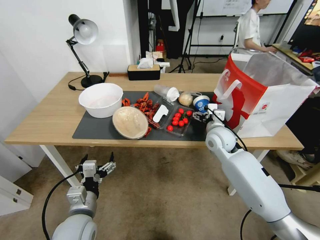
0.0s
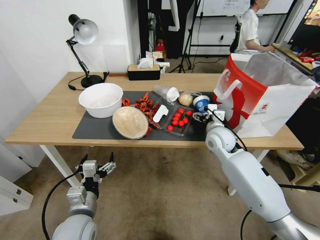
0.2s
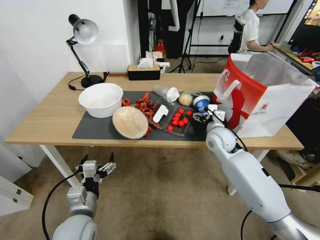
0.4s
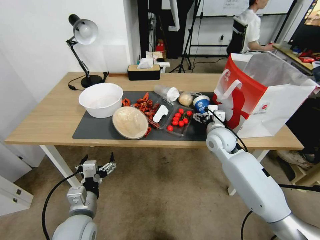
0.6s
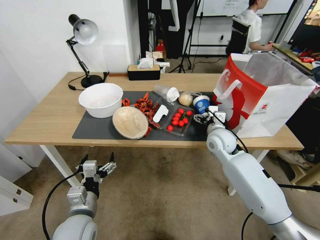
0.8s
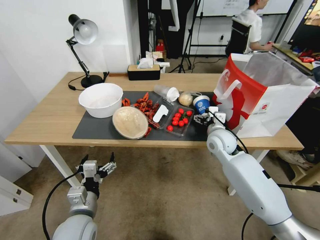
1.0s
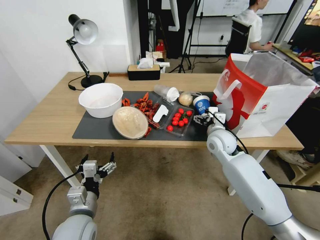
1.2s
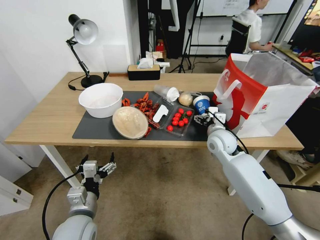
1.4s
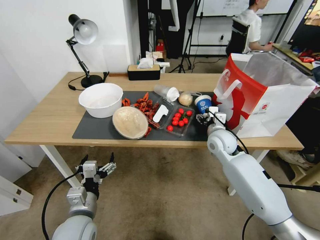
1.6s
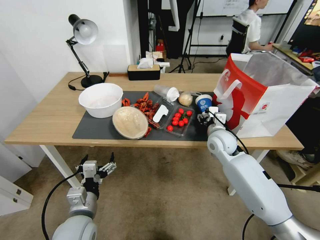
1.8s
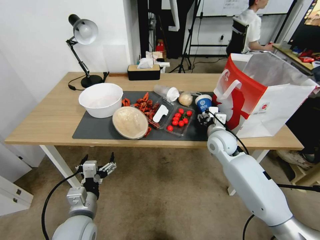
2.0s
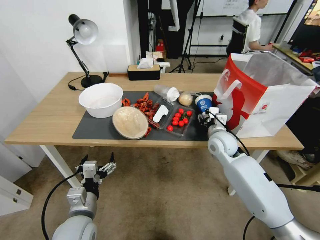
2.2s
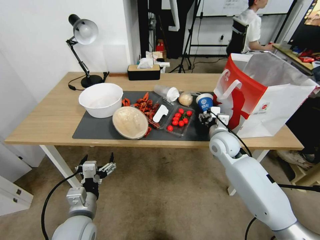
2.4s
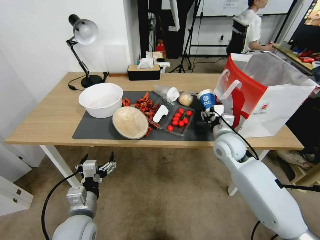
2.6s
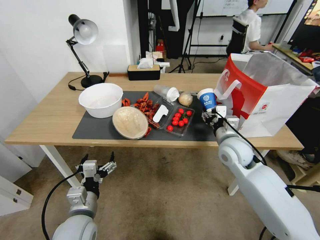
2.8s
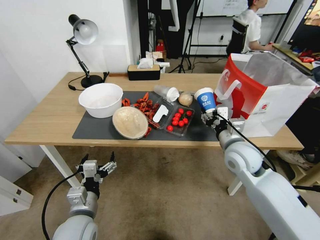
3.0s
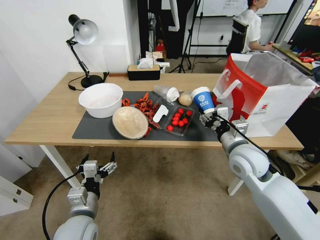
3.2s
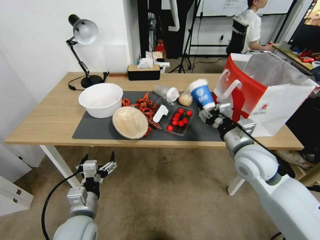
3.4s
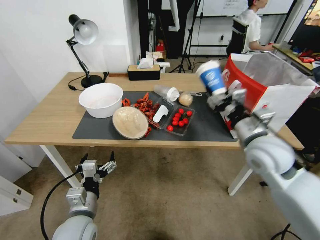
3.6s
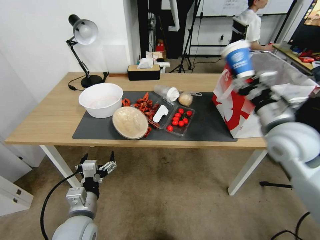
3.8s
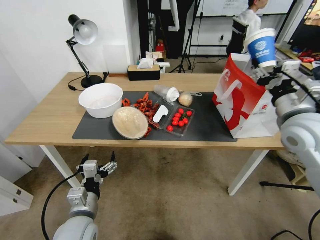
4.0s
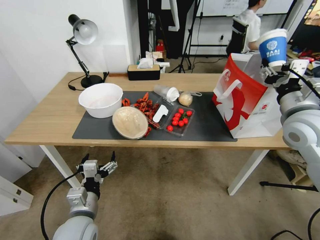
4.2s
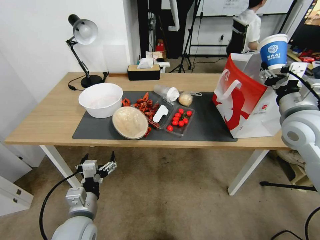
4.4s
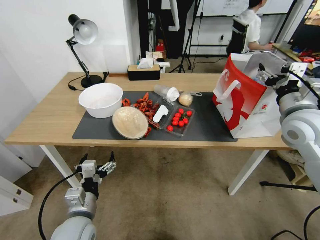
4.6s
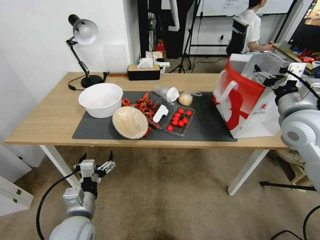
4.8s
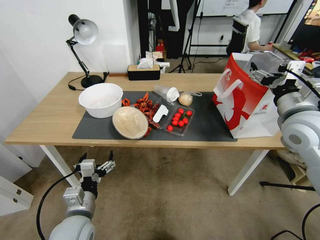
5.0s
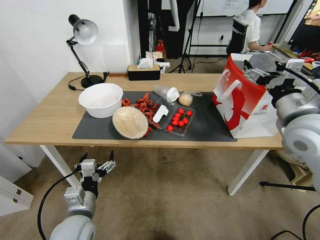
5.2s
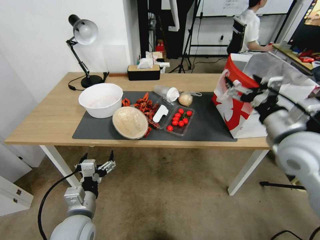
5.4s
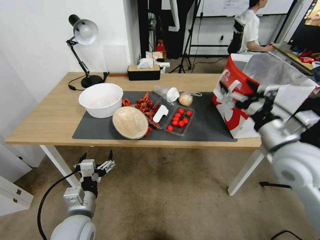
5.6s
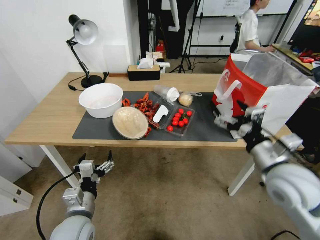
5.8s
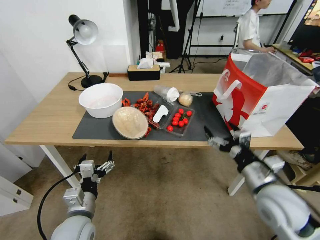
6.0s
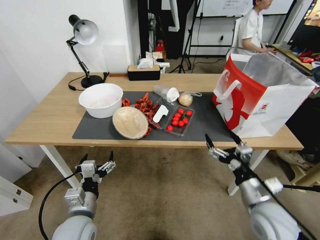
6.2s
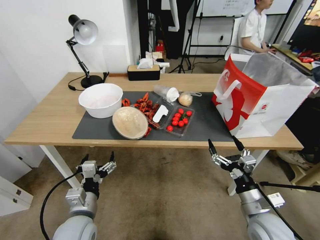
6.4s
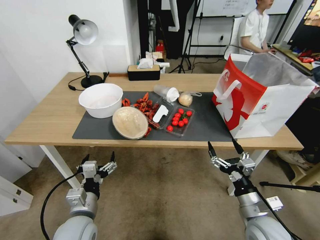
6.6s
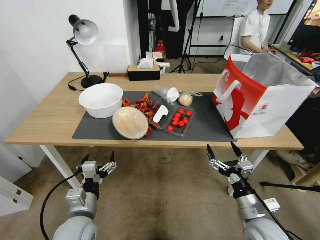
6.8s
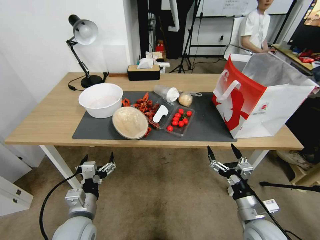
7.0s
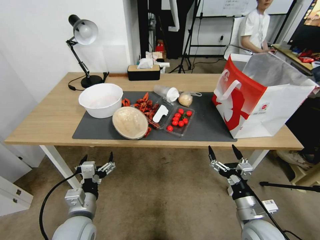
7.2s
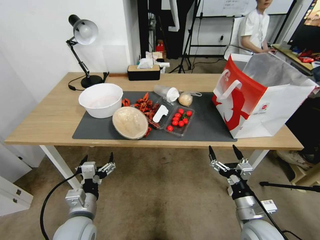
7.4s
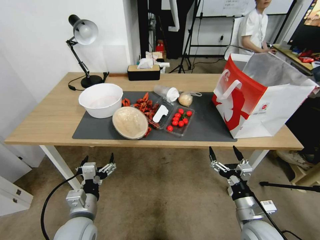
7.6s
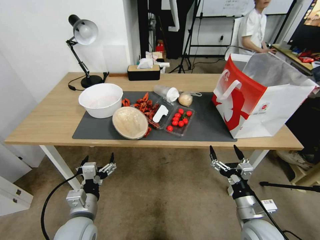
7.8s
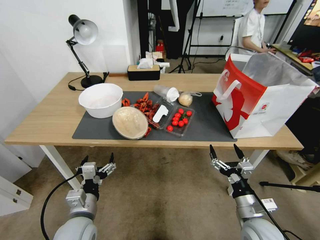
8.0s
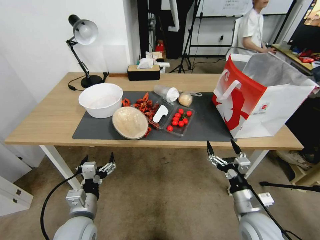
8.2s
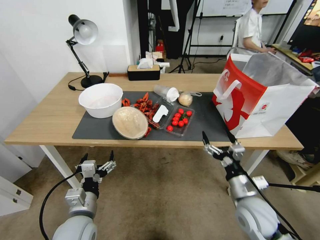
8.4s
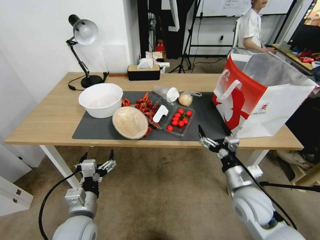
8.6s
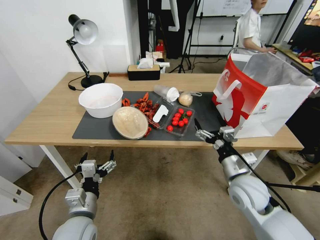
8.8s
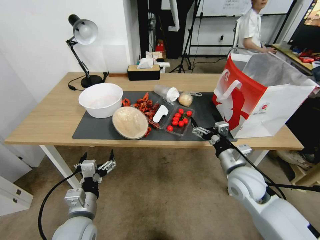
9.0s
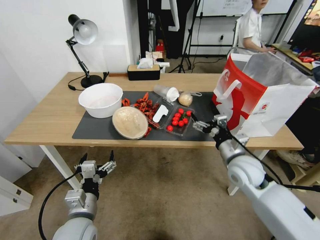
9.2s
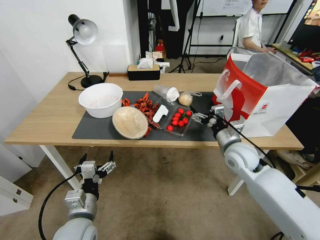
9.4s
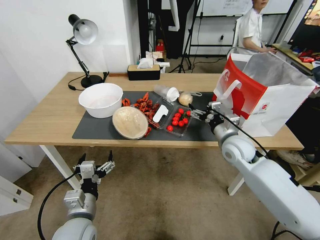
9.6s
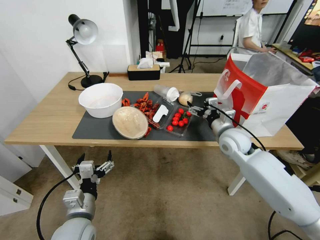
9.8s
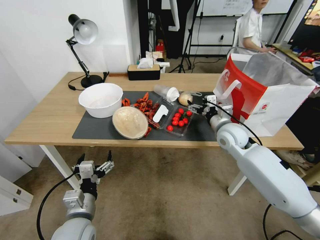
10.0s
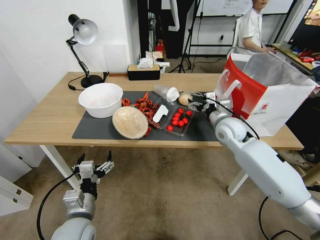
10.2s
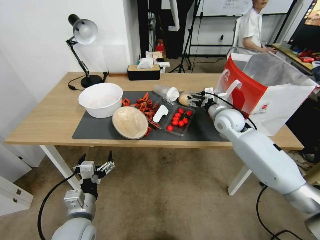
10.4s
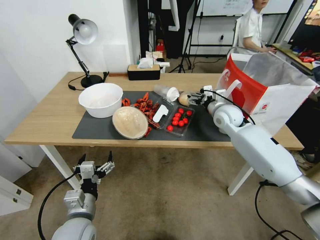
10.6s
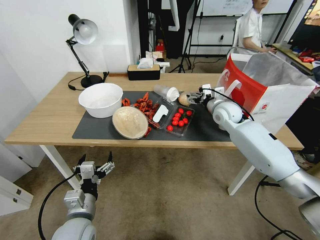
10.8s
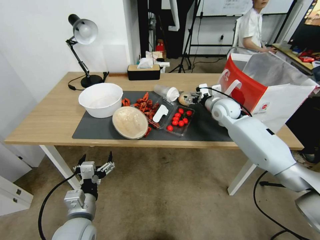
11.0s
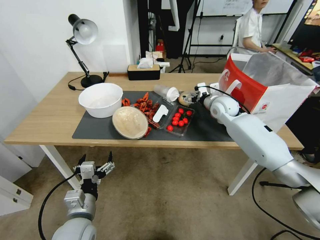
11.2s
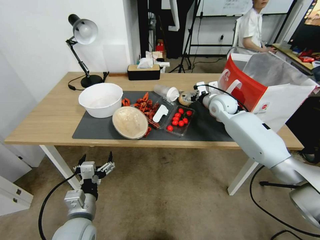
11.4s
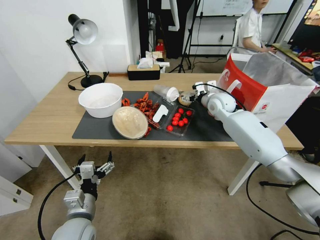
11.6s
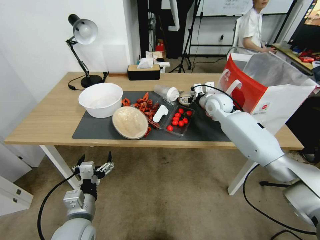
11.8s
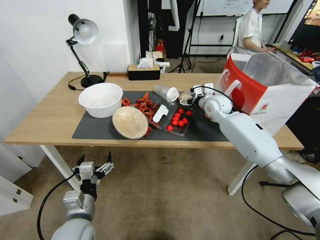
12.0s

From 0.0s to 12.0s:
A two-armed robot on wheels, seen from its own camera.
From 0.0s to 1.6s: The two grippers keep their place.
From 1.6s to 3.0s: The right gripper travels backward by roughly 10 cm.
From 3.0s to 4.4s: The right gripper goes about 15 cm upward and to the right.
From 4.4s to 6.0s: The right gripper is displaced downward, backward and to the left by about 20 cm, and opens up.
From 6.0s to 7.6s: The right gripper is displaced downward and backward by about 15 cm.
From 7.6s to 9.0s: The right gripper moves forward and upward, approximately 15 cm.
From 9.0s to 10.4s: The right gripper shifts some 20 cm forward.
From 10.4s to 12.0s: The right gripper shifts about 10 cm forward.

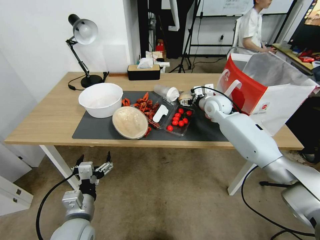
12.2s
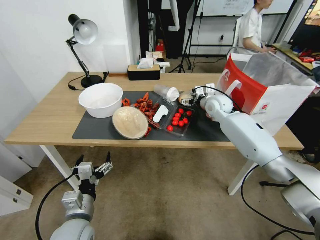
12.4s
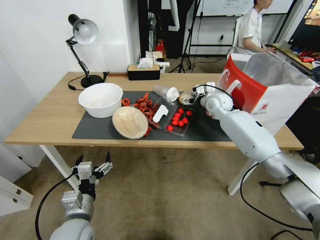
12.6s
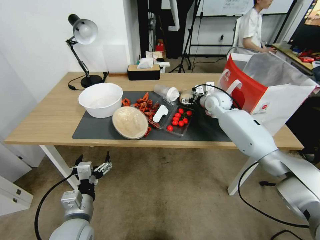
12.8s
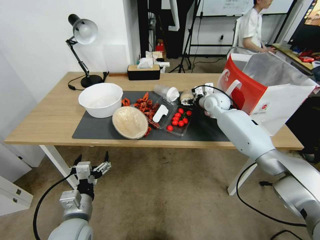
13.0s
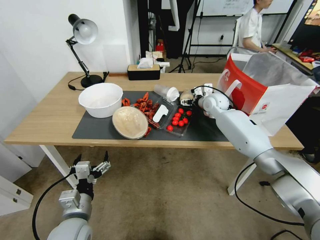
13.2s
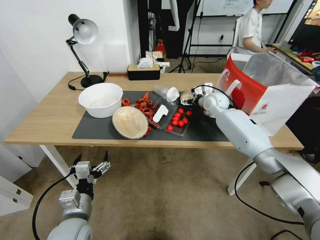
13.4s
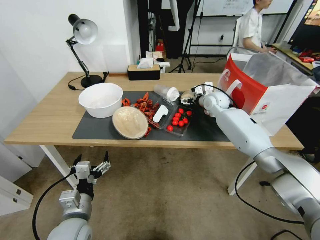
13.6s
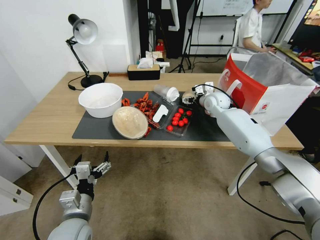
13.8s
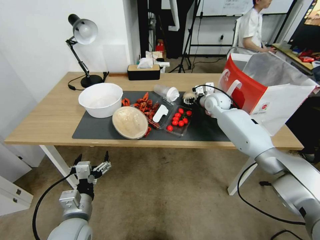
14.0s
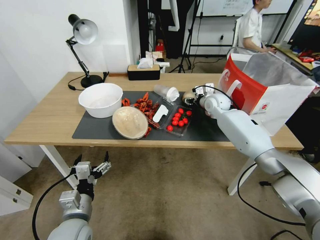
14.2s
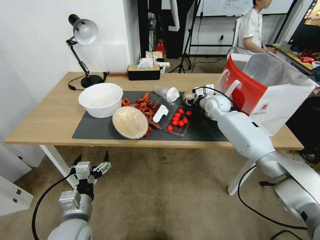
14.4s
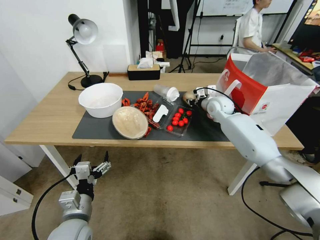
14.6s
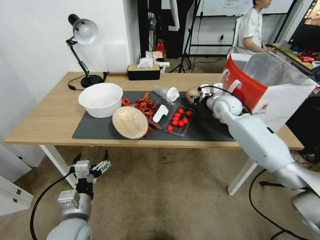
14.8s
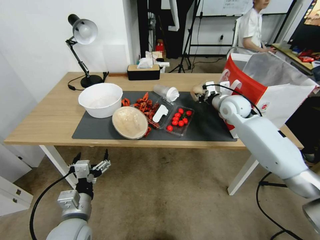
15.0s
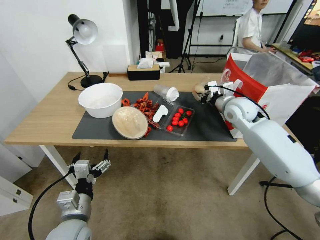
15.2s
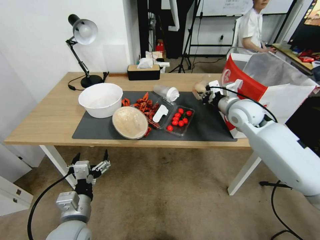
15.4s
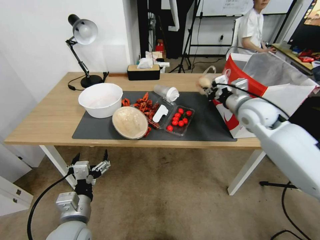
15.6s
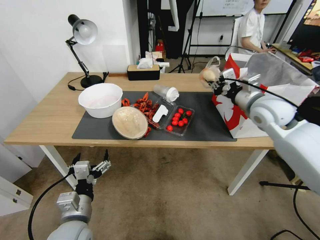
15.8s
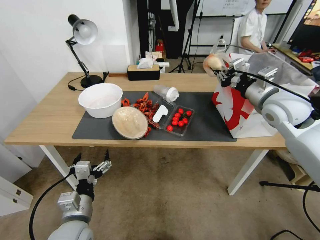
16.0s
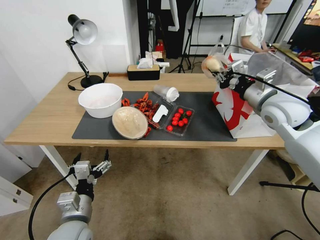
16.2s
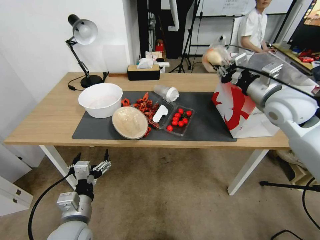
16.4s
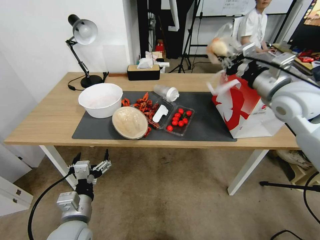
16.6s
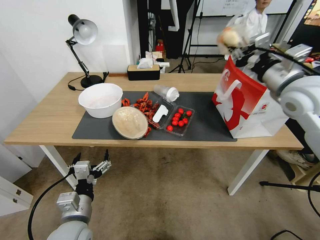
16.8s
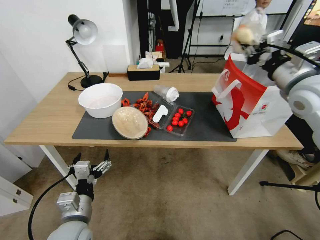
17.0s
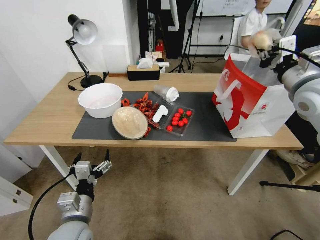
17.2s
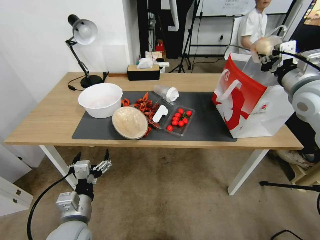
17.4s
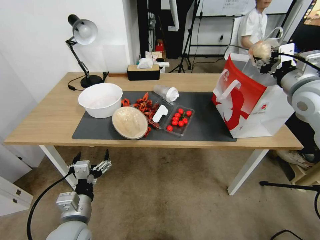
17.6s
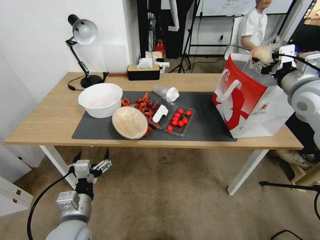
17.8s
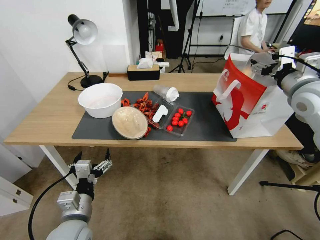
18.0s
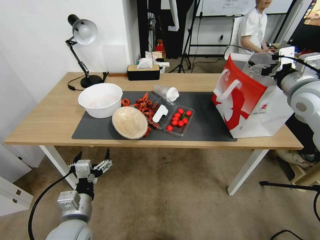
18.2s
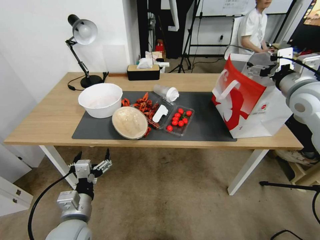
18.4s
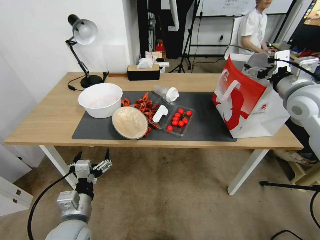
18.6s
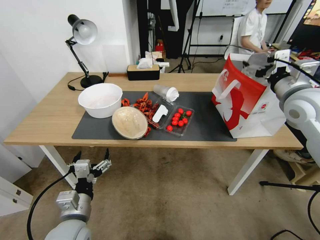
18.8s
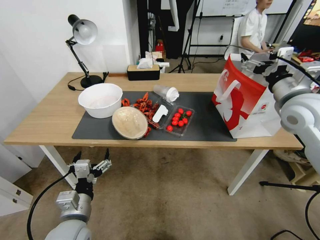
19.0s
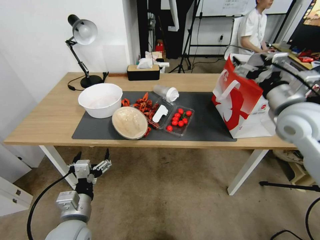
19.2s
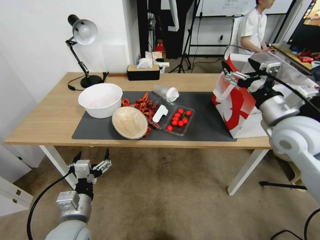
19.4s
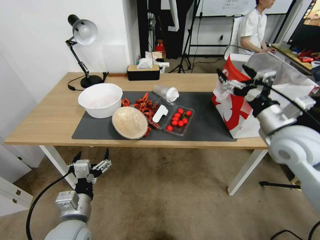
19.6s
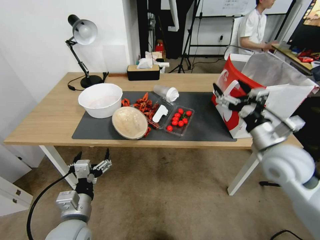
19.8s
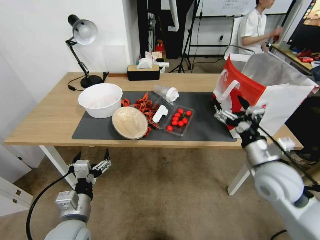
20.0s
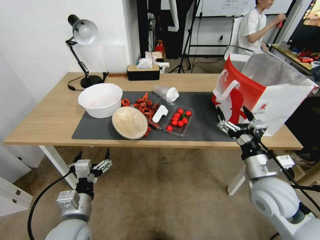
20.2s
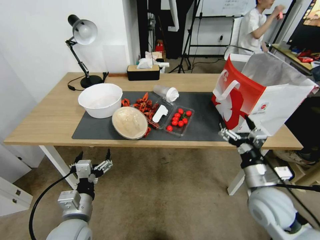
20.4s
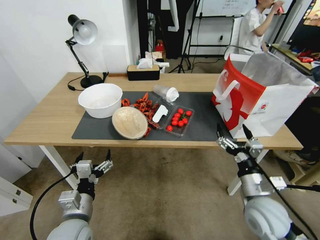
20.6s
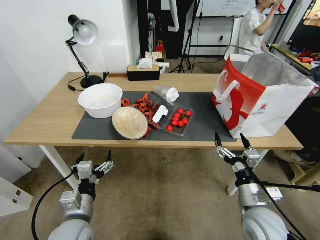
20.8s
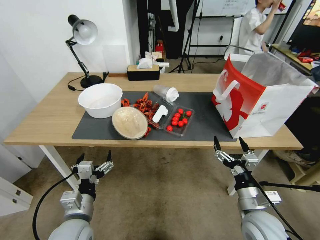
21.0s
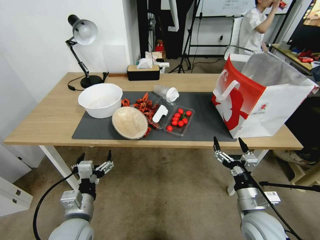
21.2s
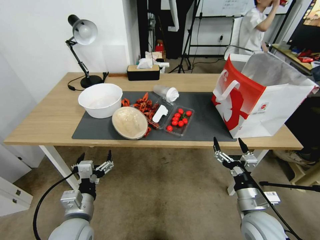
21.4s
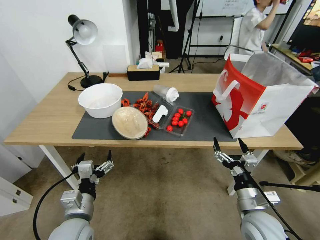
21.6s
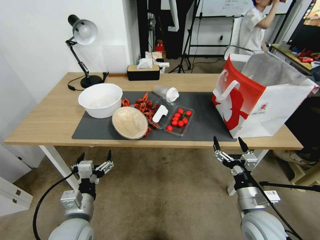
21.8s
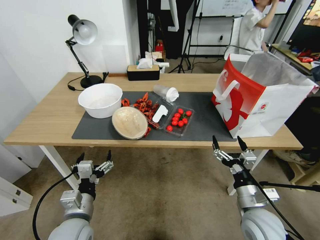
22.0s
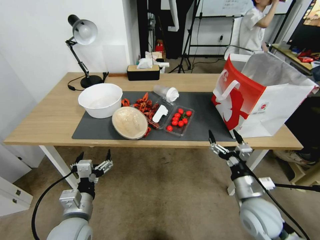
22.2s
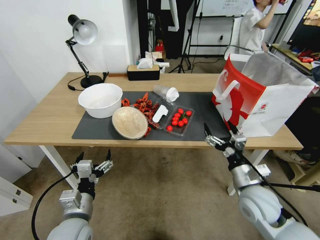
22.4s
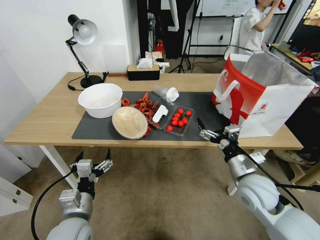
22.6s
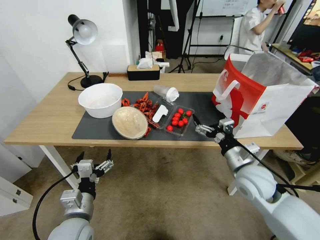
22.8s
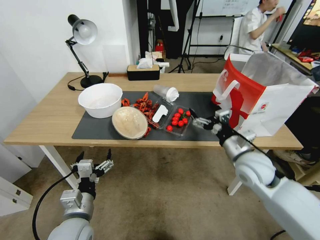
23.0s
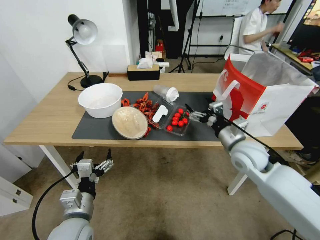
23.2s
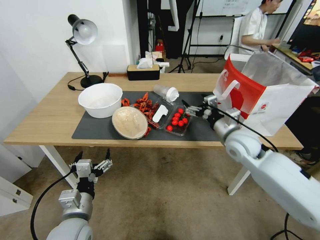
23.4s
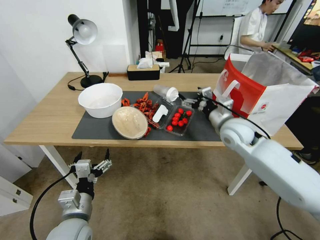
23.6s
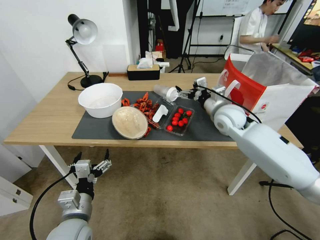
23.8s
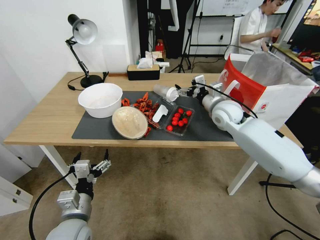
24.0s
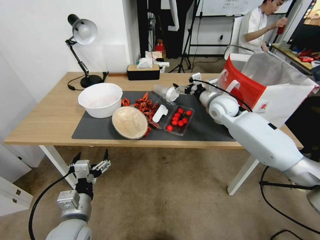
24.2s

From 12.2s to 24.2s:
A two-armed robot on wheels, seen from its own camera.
From 12.2s to 13.8s: The grippers stay close to where they were, moving slightly.
From 13.8s to 15.2s: The right gripper travels backward and upward by some 10 cm, and closes up.
From 15.2s to 16.6s: The right gripper is displaced upward, backward and to the right by some 15 cm.
From 16.6s to 18.2s: The right gripper heads to the right, covering roughly 5 cm, and opens up.
From 18.2s to 19.8s: The right gripper heads downward, backward and to the left, covering about 20 cm.
From 19.8s to 21.2s: The right gripper travels downward and backward by approximately 20 cm.
From 21.2s to 22.6s: The right gripper moves forward and upward, roughly 10 cm.
From 22.6s to 24.2s: The right gripper goes approximately 25 cm forward.
